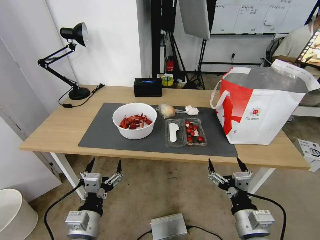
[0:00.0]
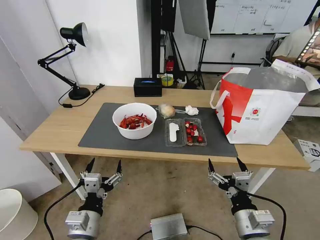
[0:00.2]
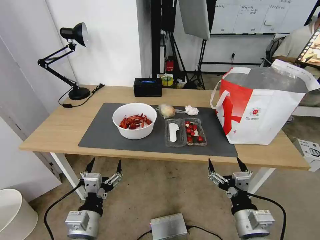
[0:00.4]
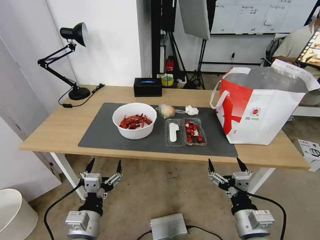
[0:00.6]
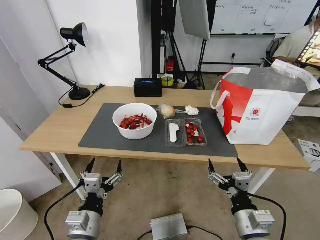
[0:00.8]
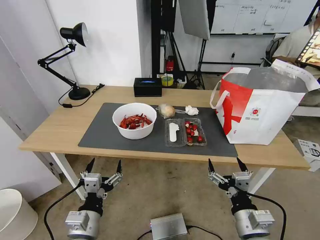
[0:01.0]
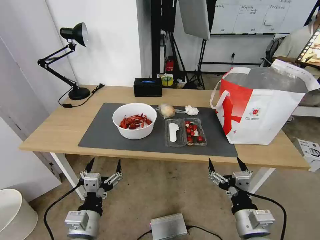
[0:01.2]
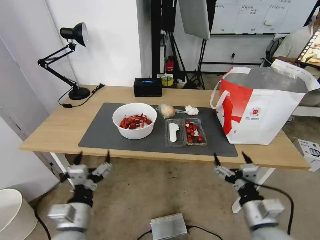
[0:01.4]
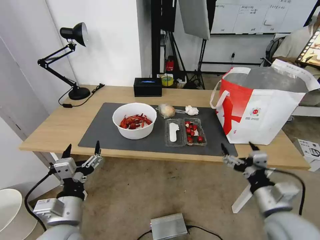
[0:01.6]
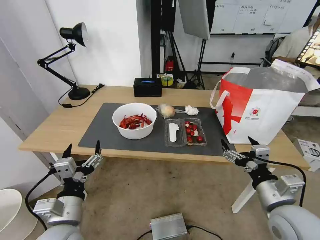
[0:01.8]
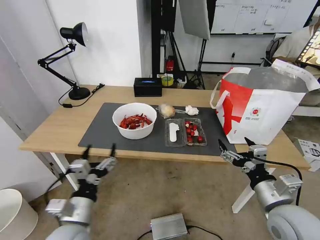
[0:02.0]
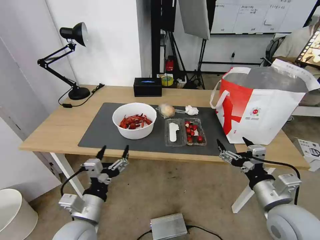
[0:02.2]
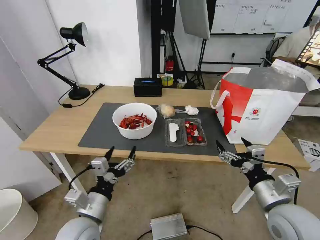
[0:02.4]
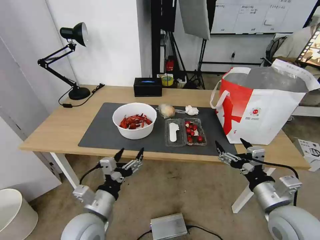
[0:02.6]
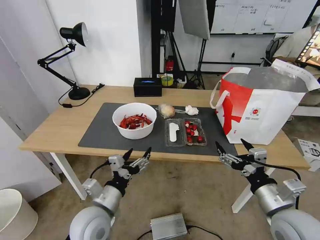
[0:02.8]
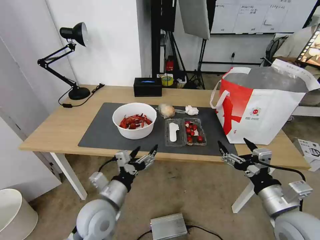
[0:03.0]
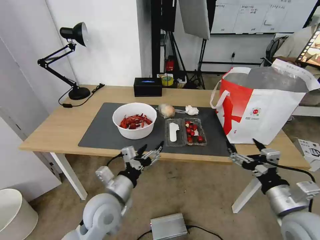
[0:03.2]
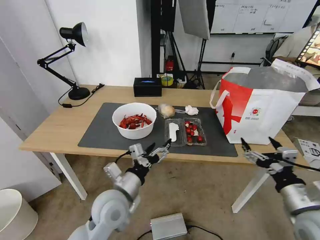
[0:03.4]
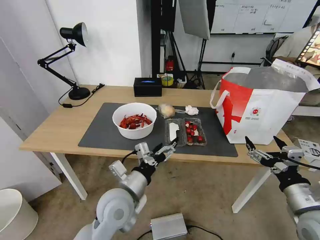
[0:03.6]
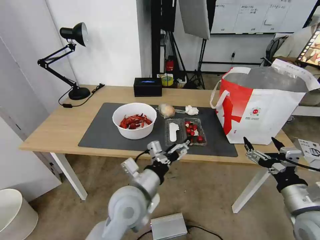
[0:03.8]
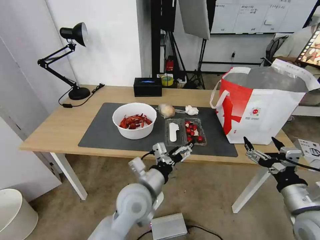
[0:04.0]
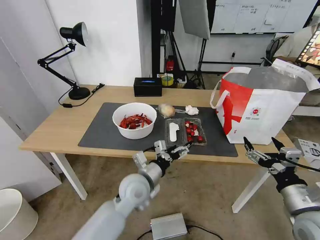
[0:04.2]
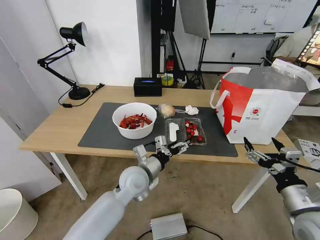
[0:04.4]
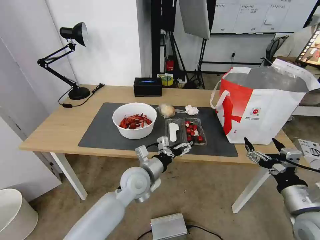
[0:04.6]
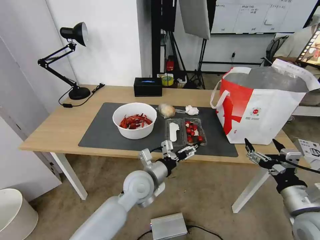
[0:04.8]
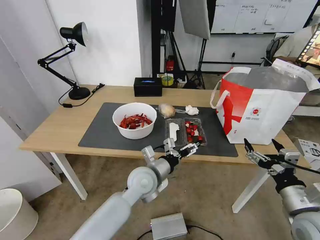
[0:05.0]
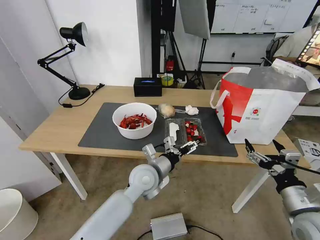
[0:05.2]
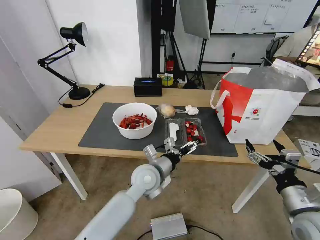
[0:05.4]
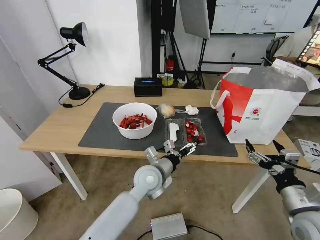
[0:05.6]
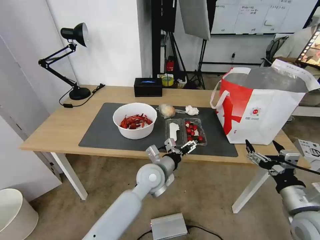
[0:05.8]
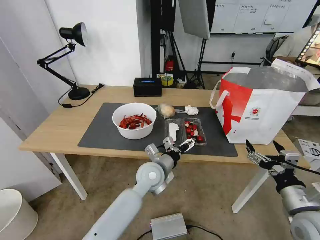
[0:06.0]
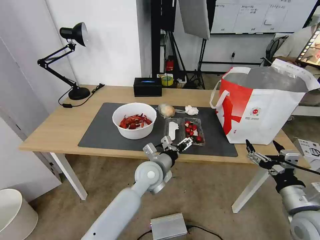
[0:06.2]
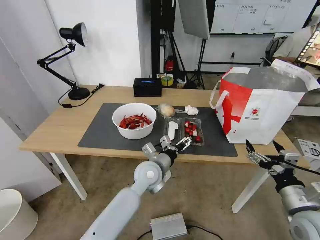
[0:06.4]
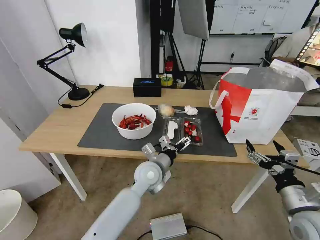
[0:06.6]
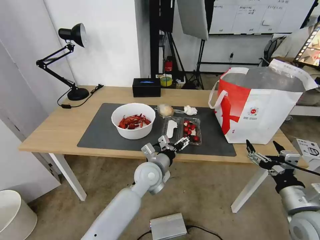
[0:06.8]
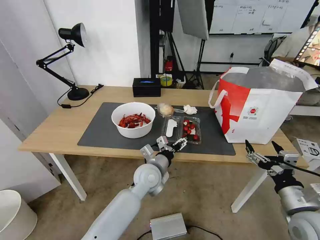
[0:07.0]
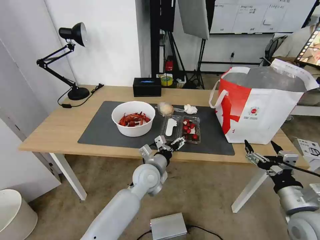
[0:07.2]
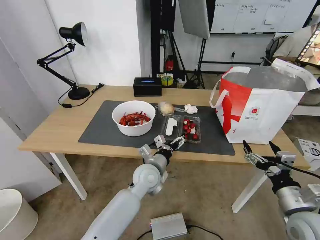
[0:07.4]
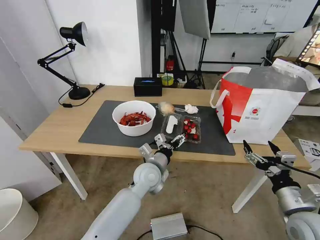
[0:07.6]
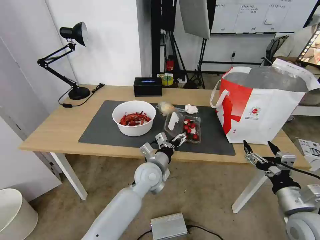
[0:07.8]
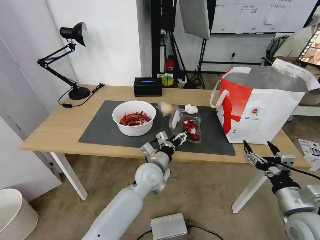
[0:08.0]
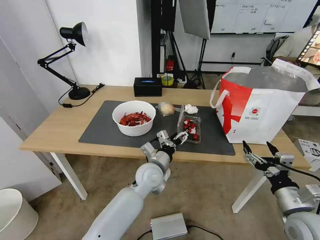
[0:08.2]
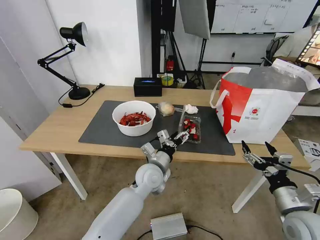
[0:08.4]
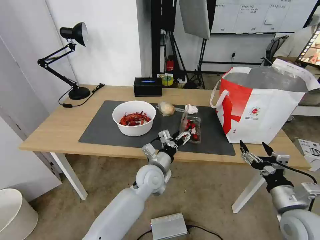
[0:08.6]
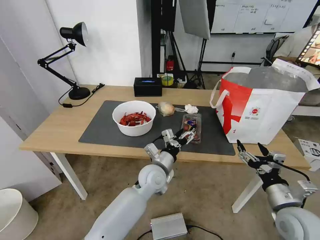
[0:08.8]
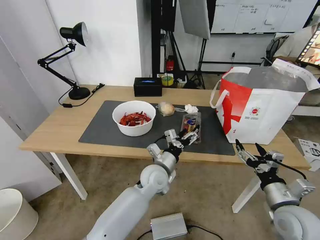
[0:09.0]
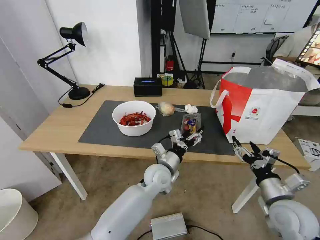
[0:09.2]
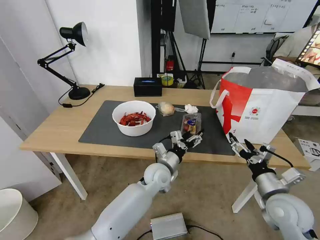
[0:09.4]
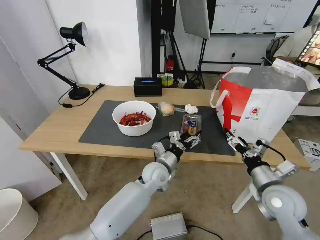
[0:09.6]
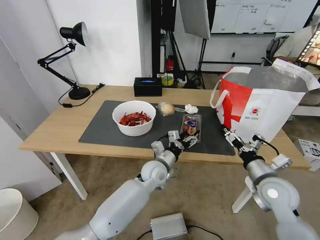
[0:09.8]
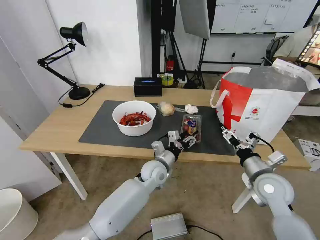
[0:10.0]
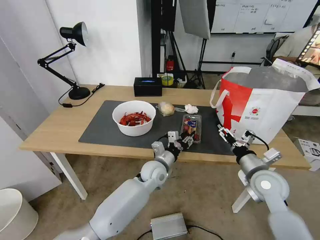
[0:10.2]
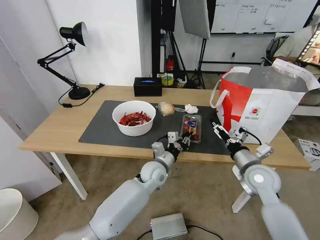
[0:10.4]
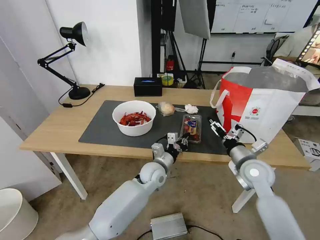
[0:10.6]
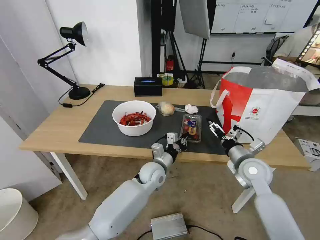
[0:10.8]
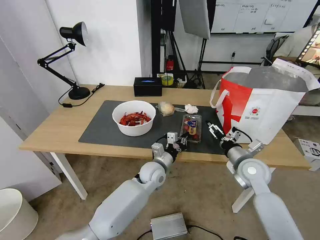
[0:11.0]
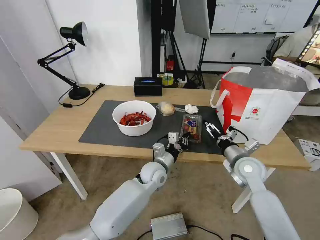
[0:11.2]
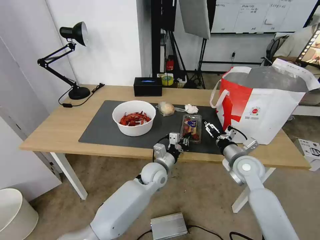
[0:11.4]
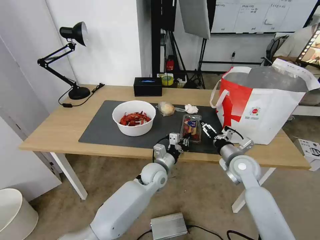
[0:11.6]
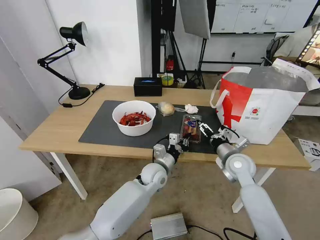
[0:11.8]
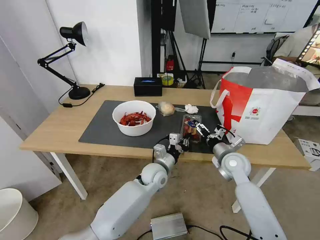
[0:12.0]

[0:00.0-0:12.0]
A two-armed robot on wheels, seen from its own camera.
Task of the whole recording: Pick up the trash from the table and place it into the takeout bag.
0:01.6 to 0:03.0: The left gripper is displaced forward and to the right by approximately 10 cm.
0:03.0 to 0:04.4: The left gripper is displaced forward and to the right by some 15 cm.
0:04.4 to 0:06.0: The left gripper goes some 5 cm to the right.
0:06.0 to 0:07.6: There are only small adjustments of the grippers.
0:07.6 to 0:09.0: The grippers move only a little.
0:09.0 to 0:10.4: The right gripper heads forward, covering roughly 10 cm, while the left gripper closes up.
0:10.4 to 0:12.0: The right gripper goes roughly 5 cm forward.

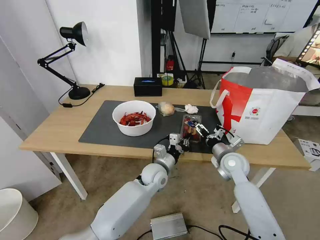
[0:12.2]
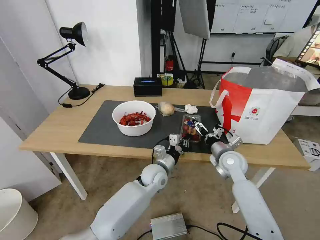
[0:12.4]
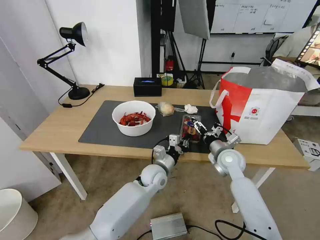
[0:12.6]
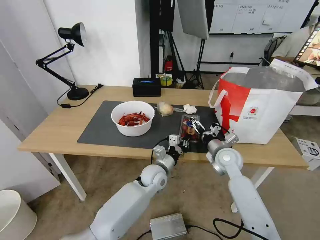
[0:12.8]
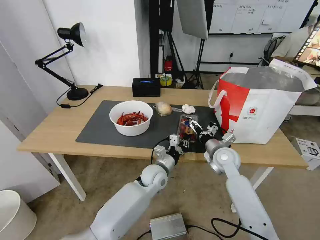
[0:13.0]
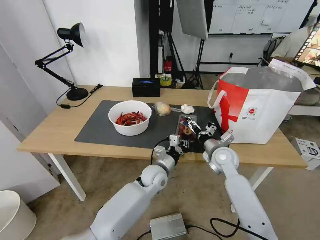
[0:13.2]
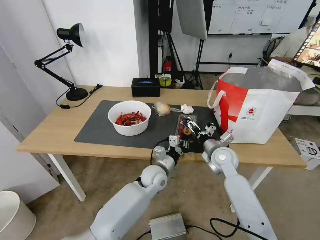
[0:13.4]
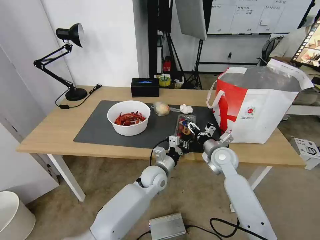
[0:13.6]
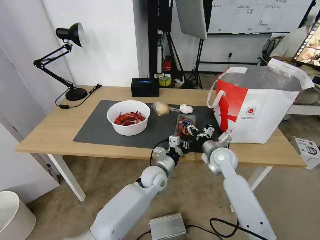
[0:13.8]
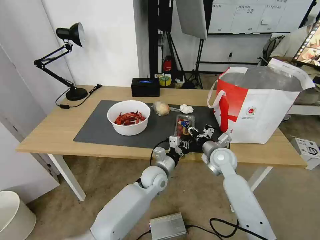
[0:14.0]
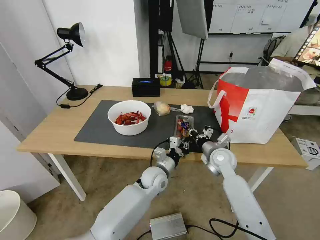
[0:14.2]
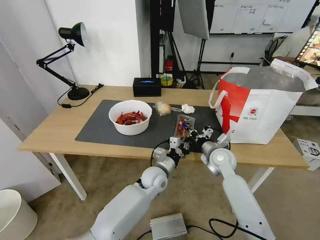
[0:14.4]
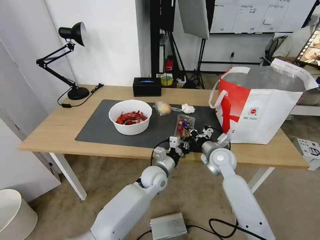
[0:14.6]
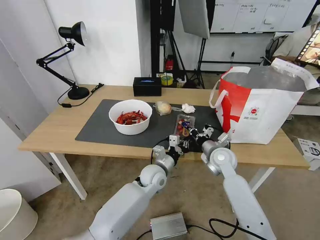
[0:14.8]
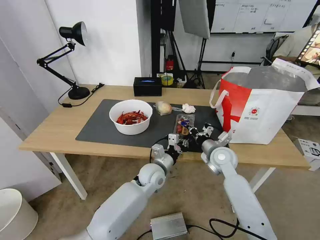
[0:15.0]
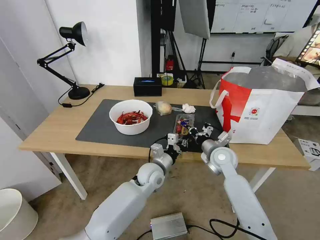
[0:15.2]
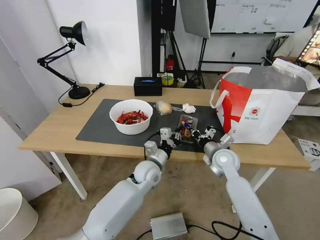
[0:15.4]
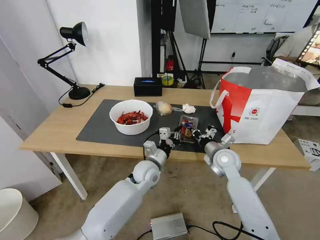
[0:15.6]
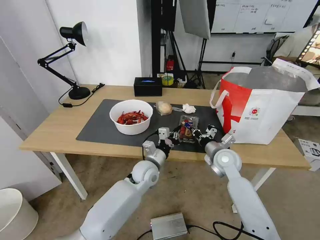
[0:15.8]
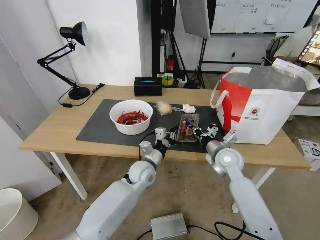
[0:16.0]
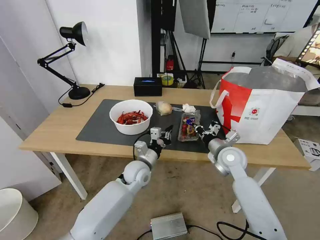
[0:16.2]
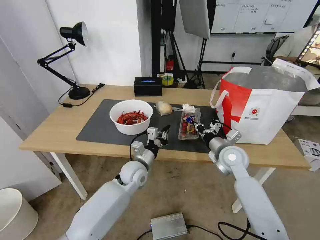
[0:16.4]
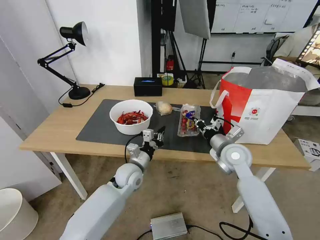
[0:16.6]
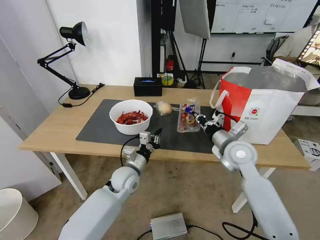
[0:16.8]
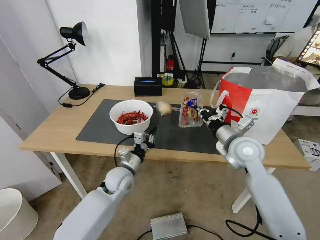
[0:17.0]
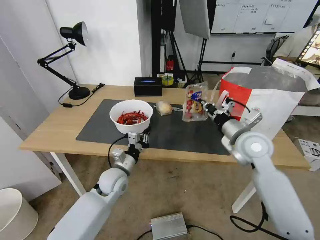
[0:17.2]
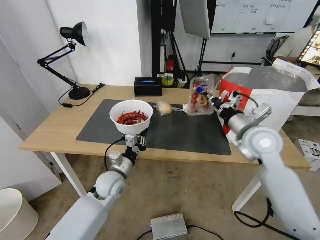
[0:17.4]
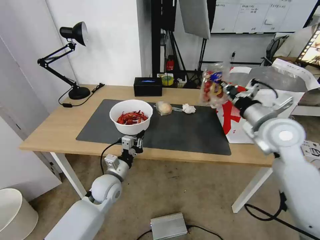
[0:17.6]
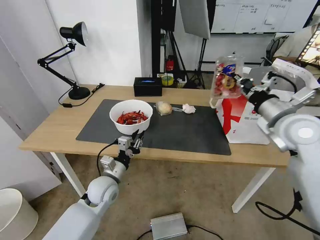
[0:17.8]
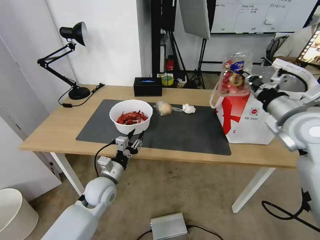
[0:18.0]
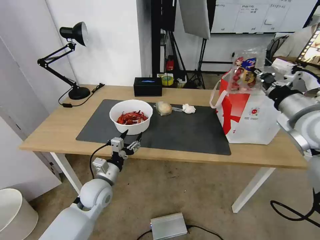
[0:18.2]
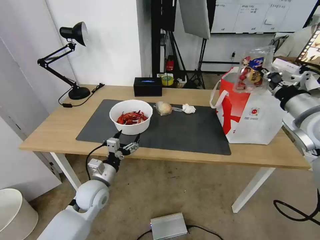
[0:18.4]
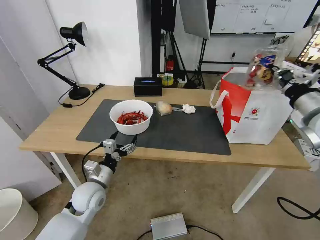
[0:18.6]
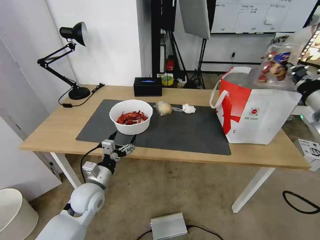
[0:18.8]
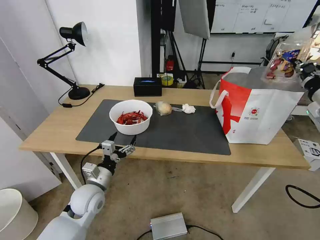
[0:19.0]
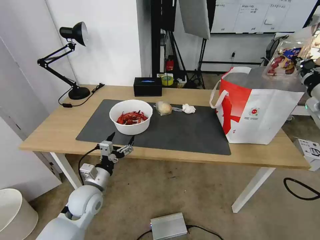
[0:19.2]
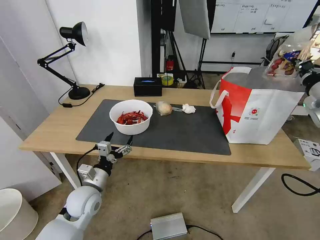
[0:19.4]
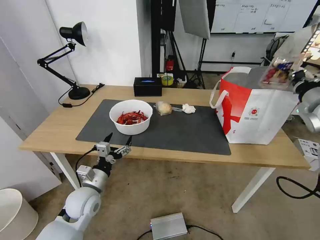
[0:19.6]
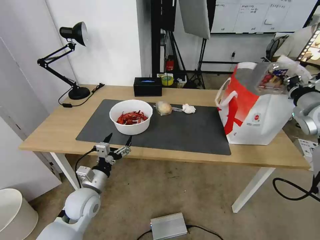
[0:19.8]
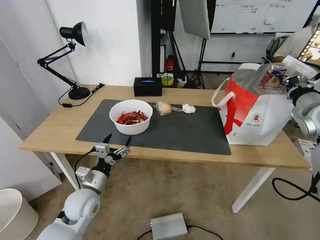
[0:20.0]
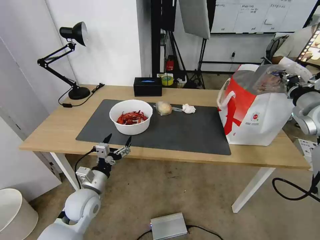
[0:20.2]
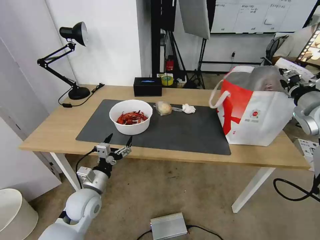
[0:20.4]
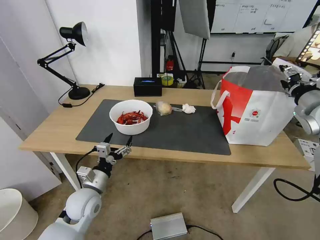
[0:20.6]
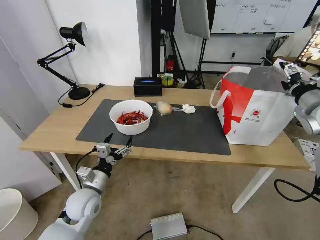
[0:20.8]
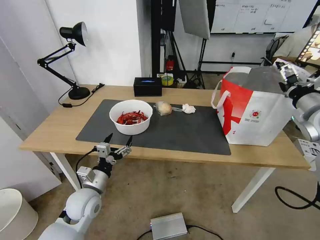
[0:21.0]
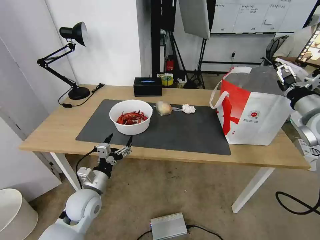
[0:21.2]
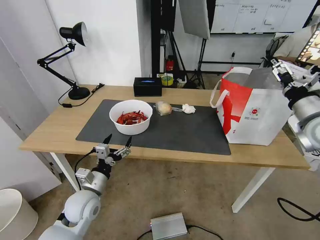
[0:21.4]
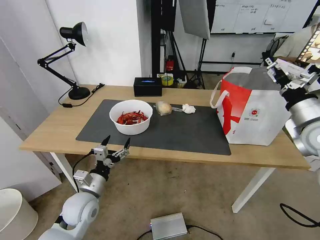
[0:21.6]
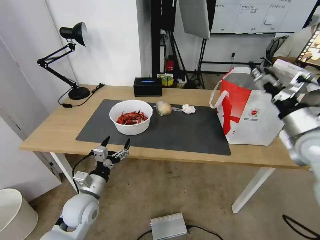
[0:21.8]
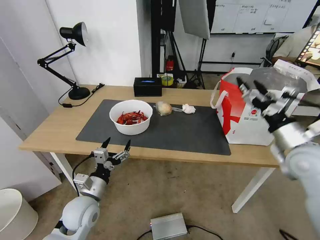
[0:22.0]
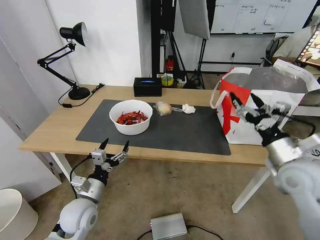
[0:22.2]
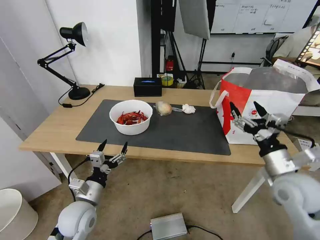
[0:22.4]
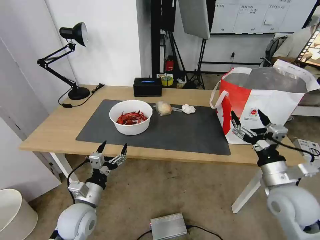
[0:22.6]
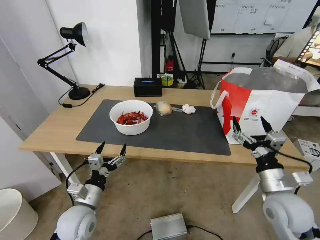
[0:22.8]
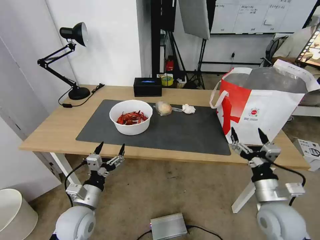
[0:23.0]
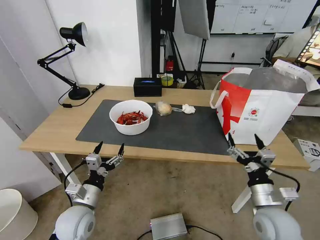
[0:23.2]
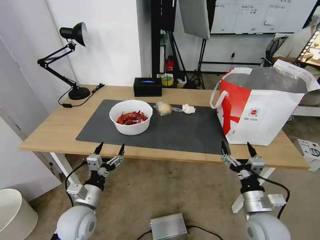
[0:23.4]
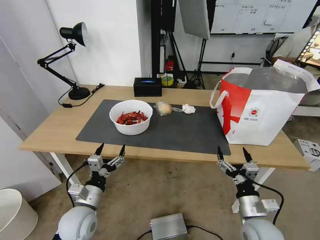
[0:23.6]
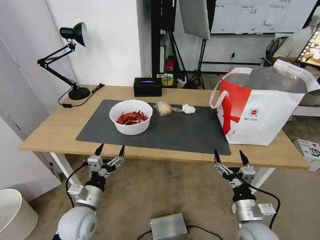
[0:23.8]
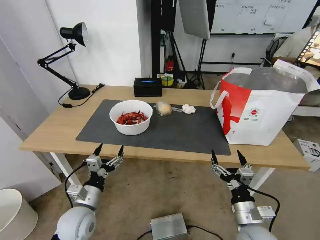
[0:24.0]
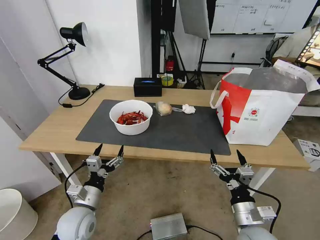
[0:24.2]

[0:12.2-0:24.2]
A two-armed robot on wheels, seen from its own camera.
Task of the whole recording: Pick up the trash from the table and place it into the takeout bag.
0:12.2 to 0:13.8: The right gripper closes.
0:13.8 to 0:15.2: The right gripper closes its fingers.
0:15.2 to 0:16.6: The left gripper moves to the left, approximately 10 cm. The right gripper travels upward by approximately 5 cm.
0:16.6 to 0:18.2: The left gripper travels to the left and backward by roughly 10 cm, and opens its fingers, while the right gripper is displaced upward and to the right by about 20 cm.
0:18.2 to 0:19.8: The right gripper shifts roughly 10 cm to the right and forward.
0:19.8 to 0:21.2: The right gripper opens up.
0:21.2 to 0:22.6: The right gripper shifts roughly 20 cm downward, backward and to the left.
0:22.6 to 0:24.2: The right gripper moves downward, to the left and backward, about 15 cm.
